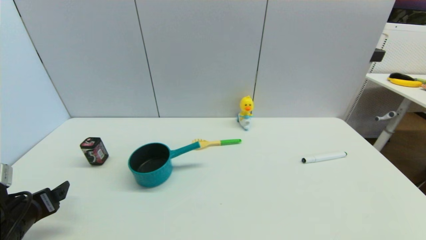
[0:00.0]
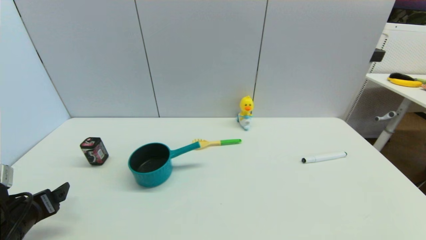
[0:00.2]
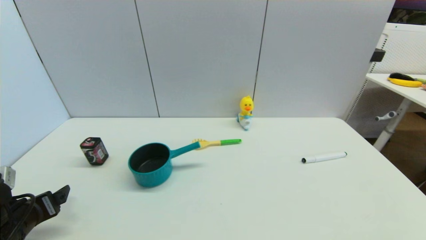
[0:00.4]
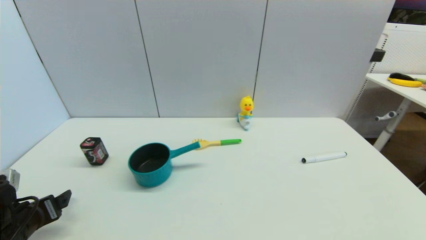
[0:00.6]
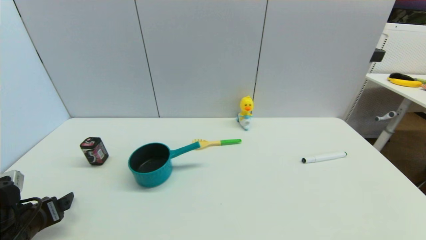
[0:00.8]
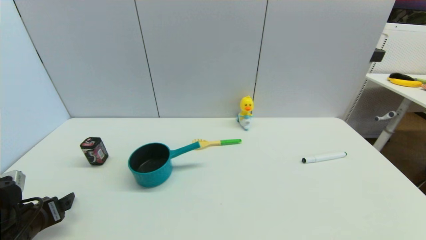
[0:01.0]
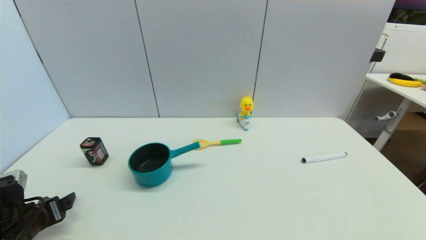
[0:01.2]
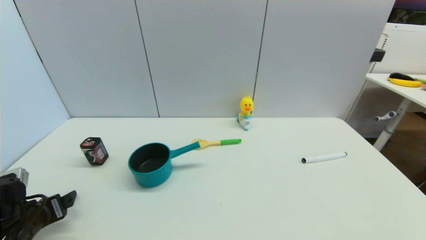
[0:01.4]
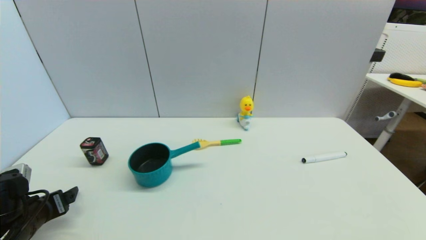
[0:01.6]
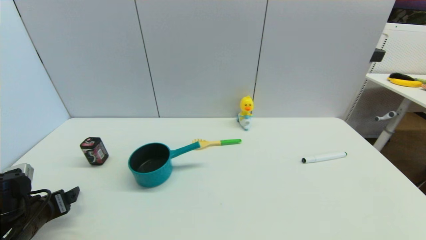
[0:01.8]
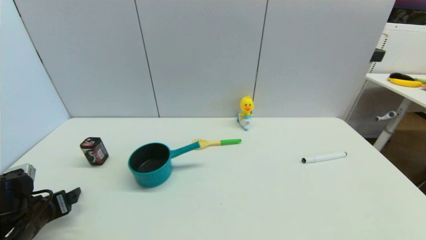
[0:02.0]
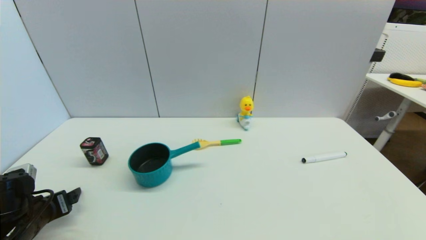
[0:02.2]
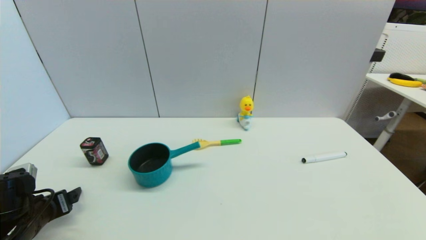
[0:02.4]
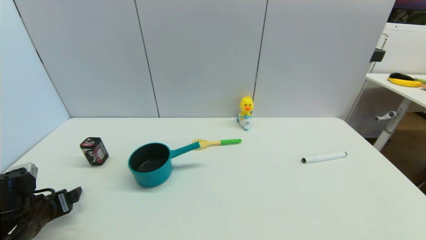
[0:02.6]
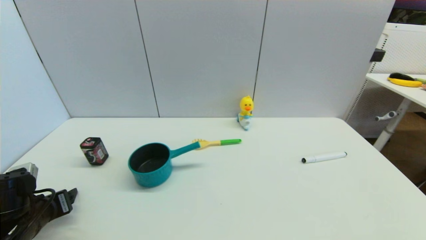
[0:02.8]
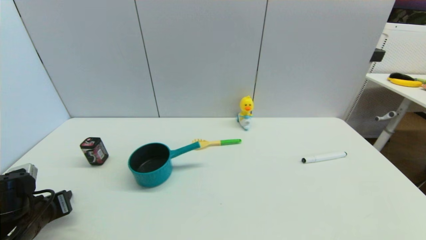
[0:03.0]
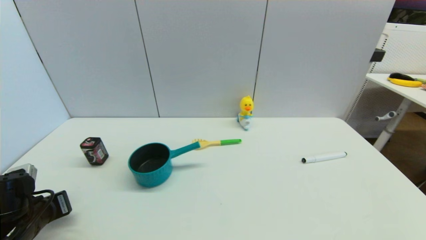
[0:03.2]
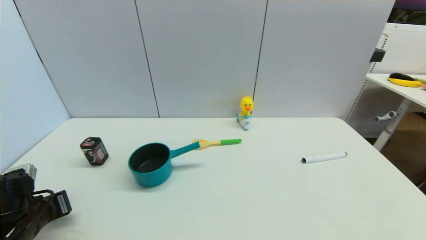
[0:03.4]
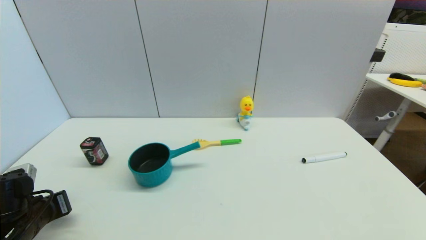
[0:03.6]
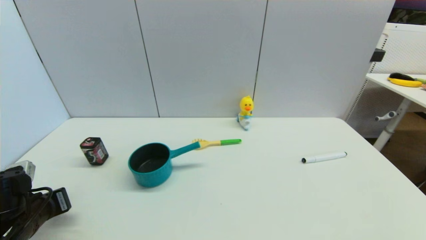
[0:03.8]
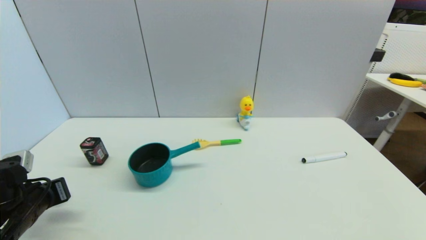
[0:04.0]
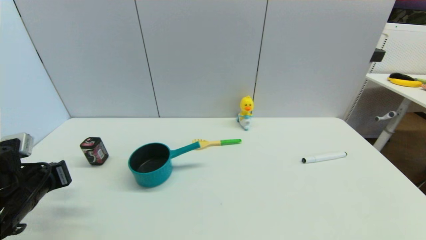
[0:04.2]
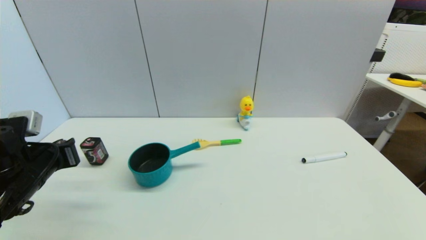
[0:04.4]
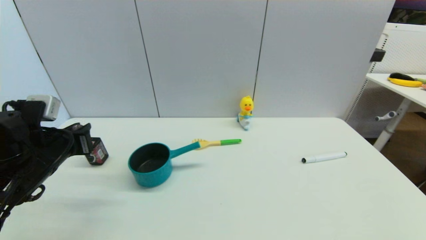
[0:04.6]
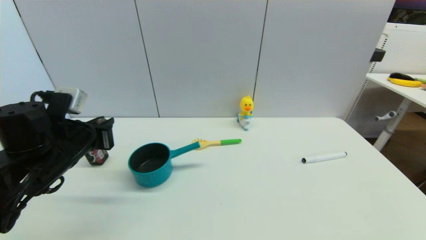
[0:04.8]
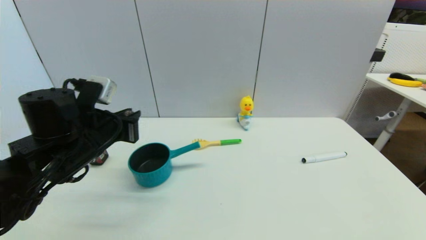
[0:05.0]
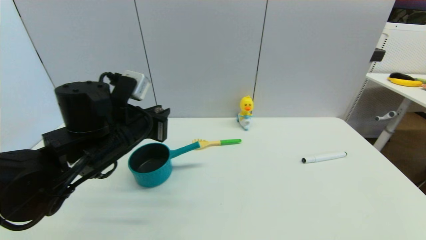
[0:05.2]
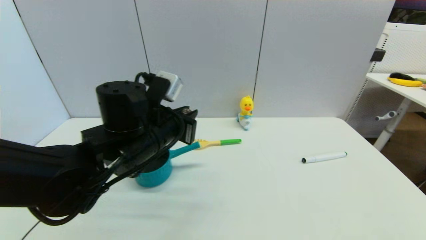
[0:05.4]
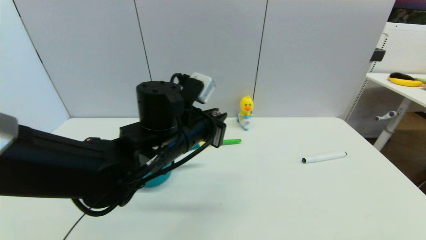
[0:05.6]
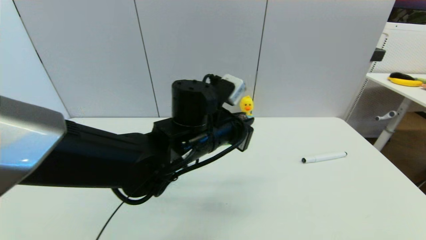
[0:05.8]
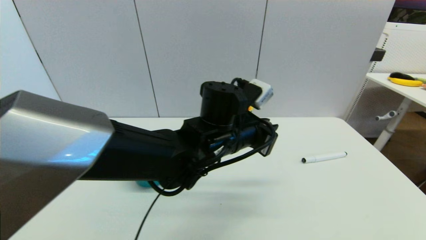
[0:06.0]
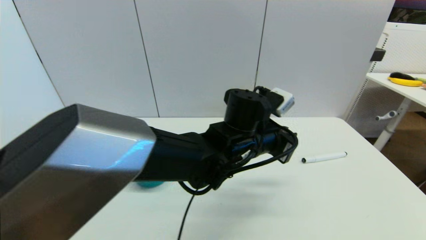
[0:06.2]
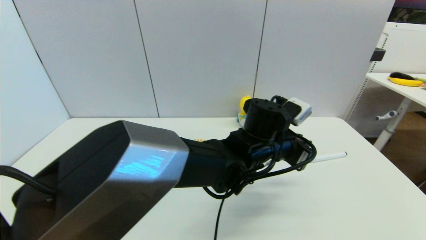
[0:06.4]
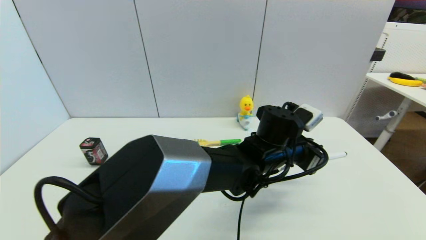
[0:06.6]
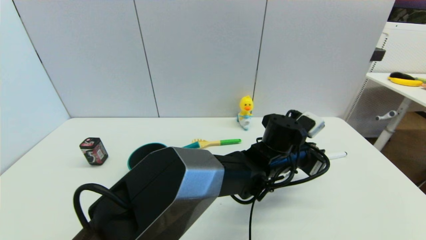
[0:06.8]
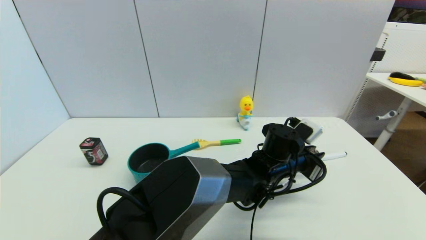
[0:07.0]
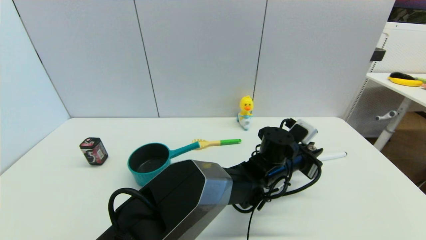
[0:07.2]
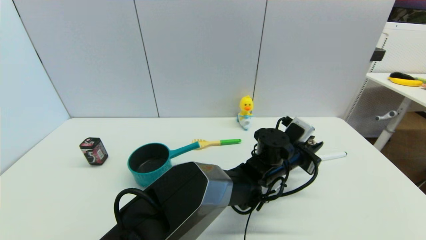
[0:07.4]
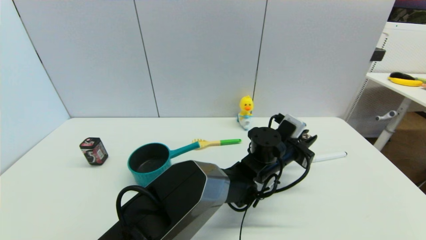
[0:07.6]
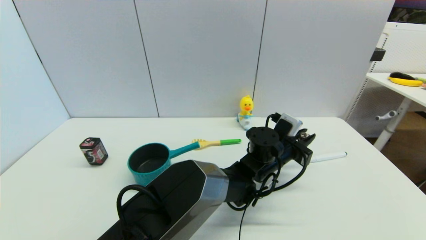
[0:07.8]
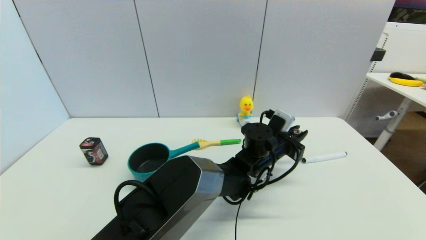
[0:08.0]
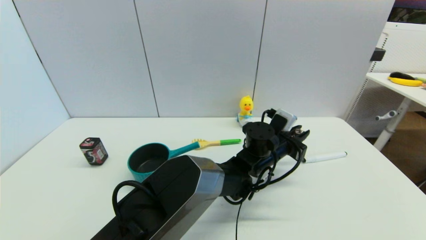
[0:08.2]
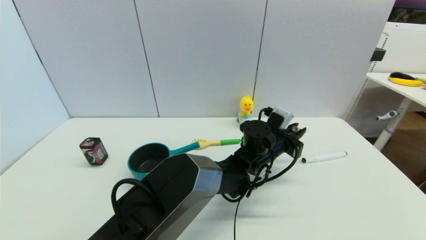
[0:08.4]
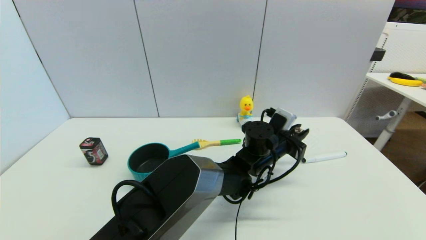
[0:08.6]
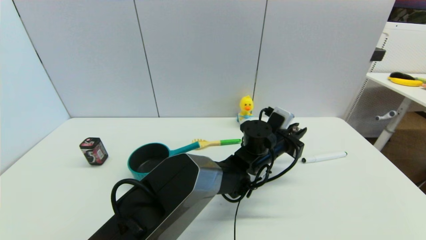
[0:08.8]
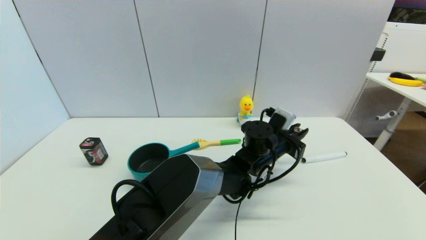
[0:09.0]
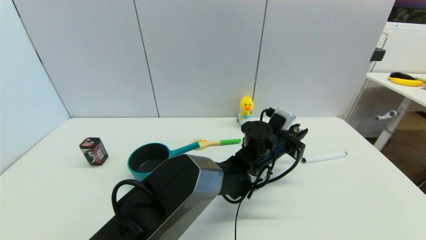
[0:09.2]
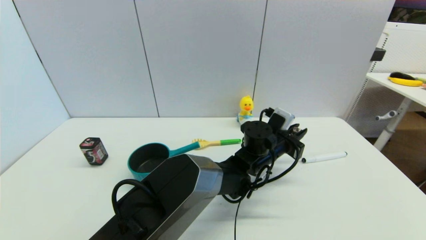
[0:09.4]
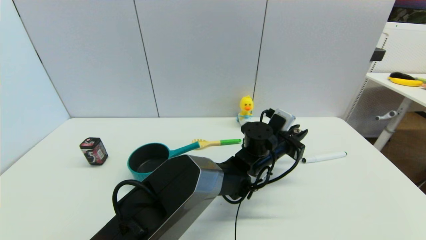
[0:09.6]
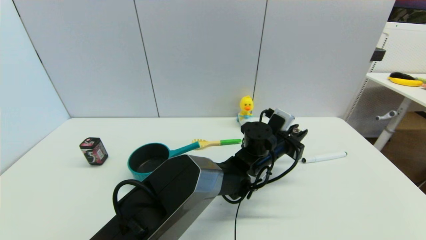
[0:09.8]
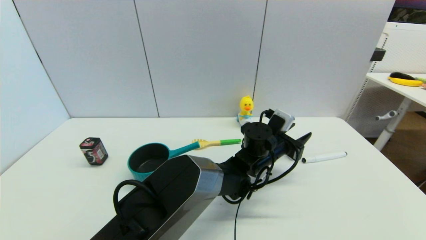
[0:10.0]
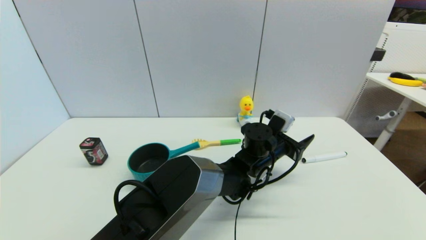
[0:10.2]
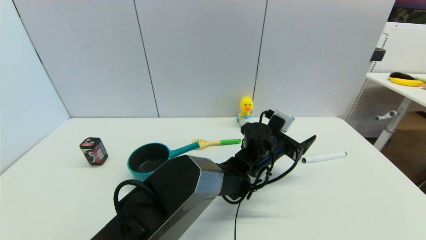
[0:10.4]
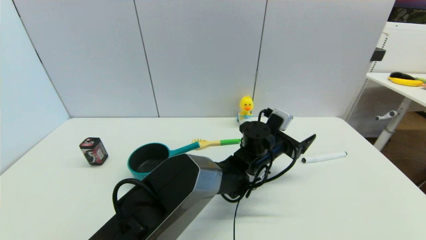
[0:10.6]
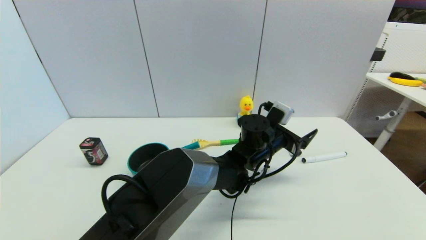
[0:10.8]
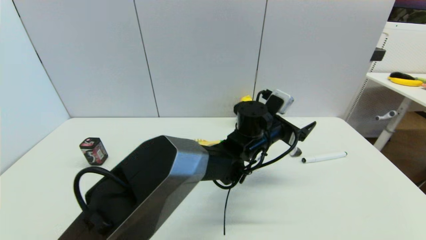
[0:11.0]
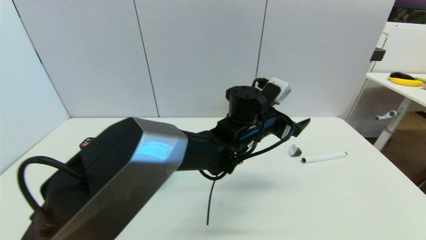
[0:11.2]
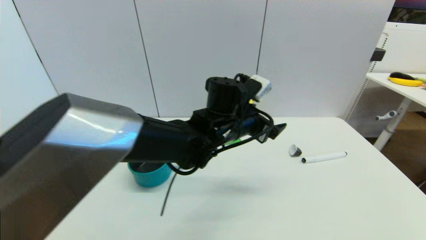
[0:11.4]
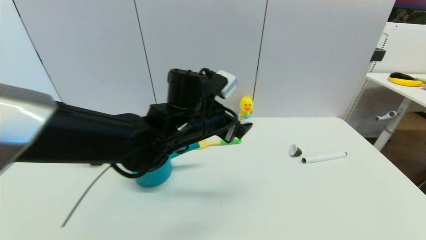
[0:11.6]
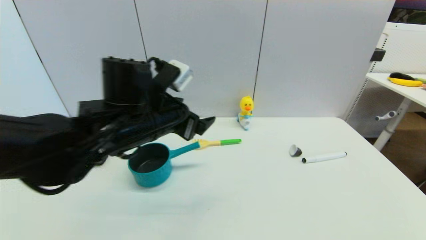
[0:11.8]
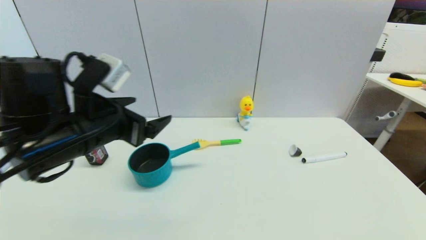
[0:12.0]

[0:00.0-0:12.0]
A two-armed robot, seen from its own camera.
Step, 0:00.0 to 0:03.6: Grasp the coffee capsule with left gripper.
Step, 0:03.8 to 0:10.2: Place the coffee capsule on the table with left gripper.
0:00.0 to 0:01.6: The grippers make only small movements.
0:01.6 to 0:03.0: The left gripper closes.
0:03.0 to 0:04.4: The left gripper heads upward, covering roughly 10 cm, and closes its fingers.
0:04.4 to 0:06.0: The left gripper heads to the right, covering about 35 cm.
0:06.0 to 0:07.6: The left gripper shifts approximately 15 cm to the right, downward and forward.
0:07.6 to 0:09.0: The grippers stay close to where they were, moving slightly.
0:09.0 to 0:10.4: The left gripper opens its fingers.
0:10.4 to 0:12.0: The left gripper shifts approximately 40 cm to the left, upward and backward.

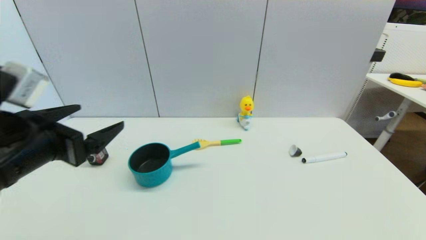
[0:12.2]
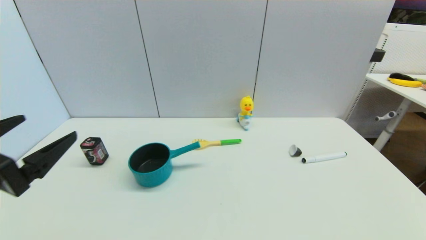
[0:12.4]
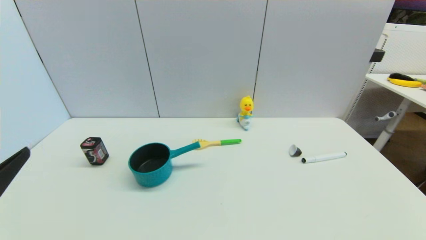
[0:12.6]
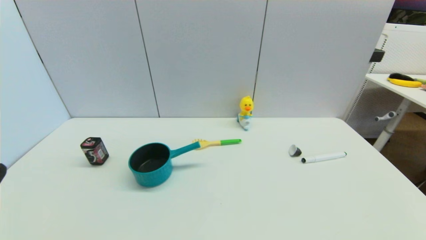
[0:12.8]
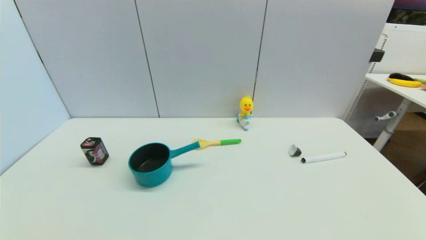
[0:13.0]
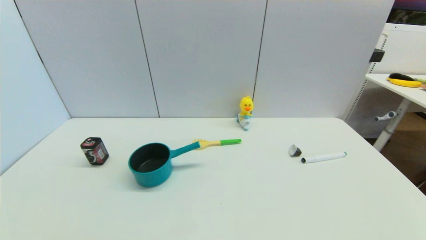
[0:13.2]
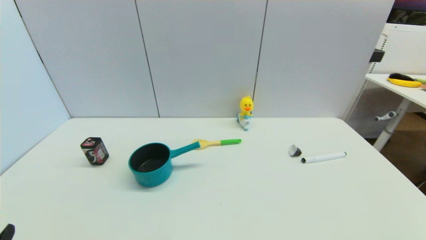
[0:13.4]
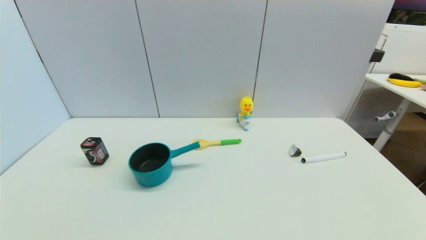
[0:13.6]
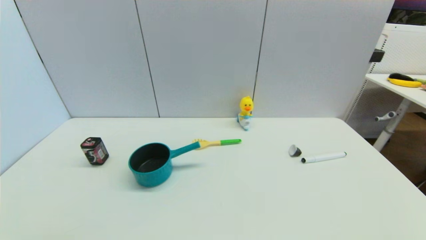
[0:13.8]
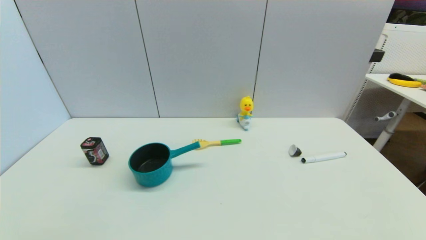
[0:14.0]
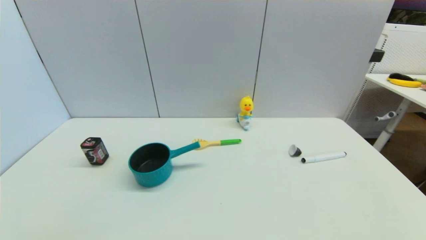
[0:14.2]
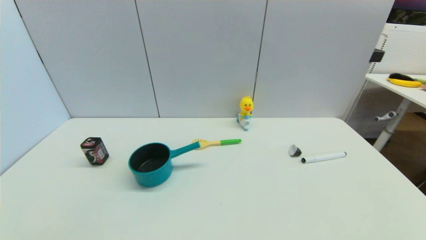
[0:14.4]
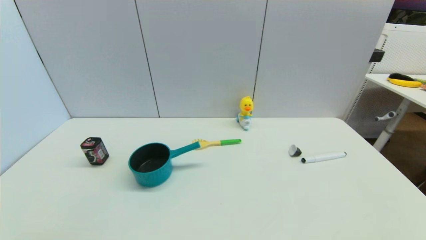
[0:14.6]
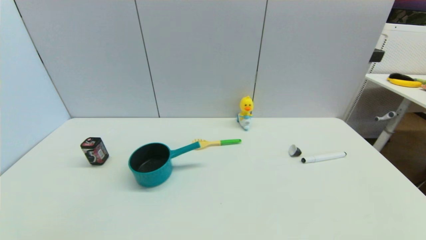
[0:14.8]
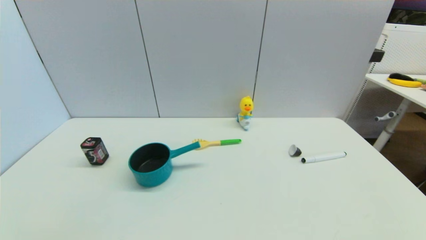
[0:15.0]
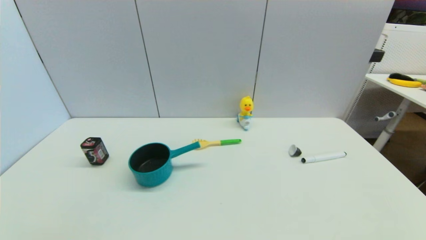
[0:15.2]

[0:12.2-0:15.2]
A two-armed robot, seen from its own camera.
0:12.2 to 0:13.8: The left gripper travels backward and downward by some 25 cm.
0:13.8 to 0:15.2: Both grippers stay put.

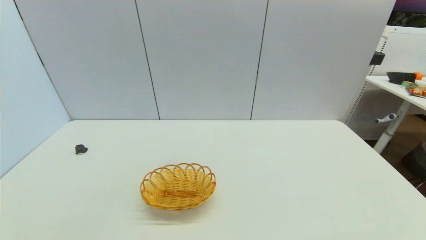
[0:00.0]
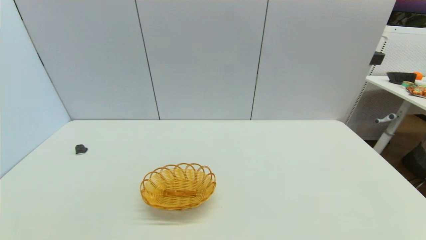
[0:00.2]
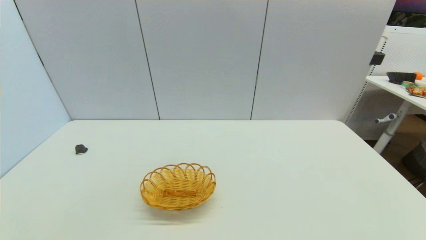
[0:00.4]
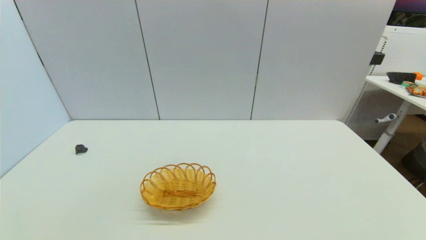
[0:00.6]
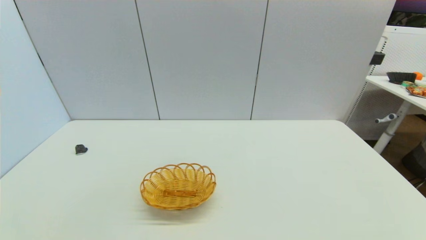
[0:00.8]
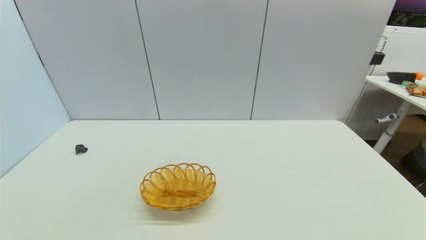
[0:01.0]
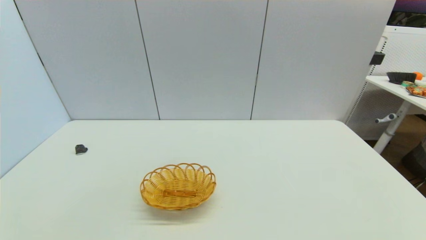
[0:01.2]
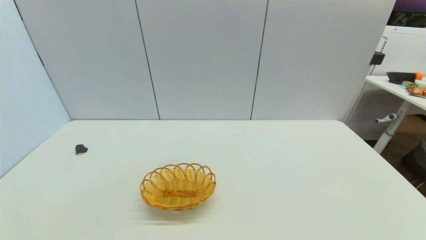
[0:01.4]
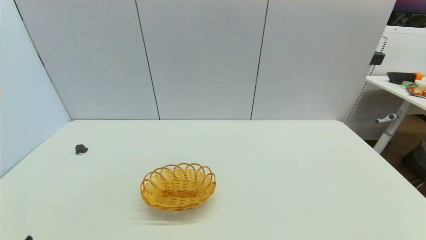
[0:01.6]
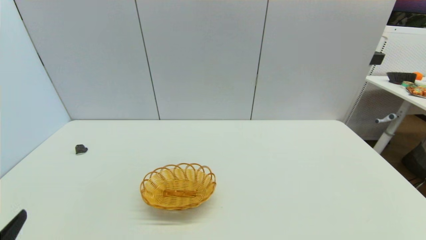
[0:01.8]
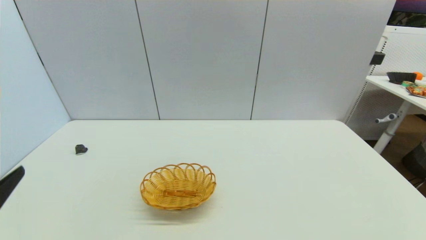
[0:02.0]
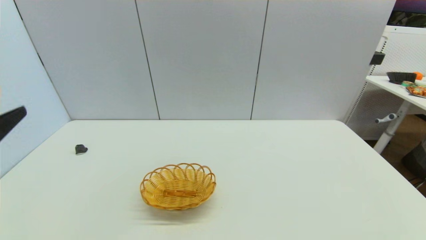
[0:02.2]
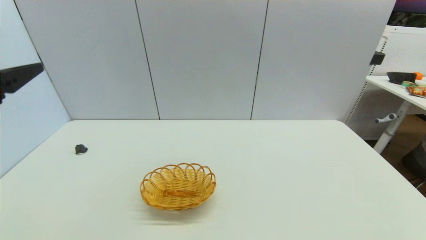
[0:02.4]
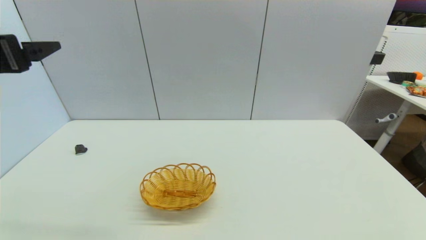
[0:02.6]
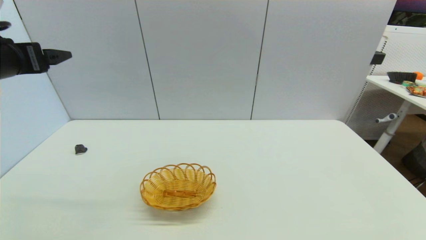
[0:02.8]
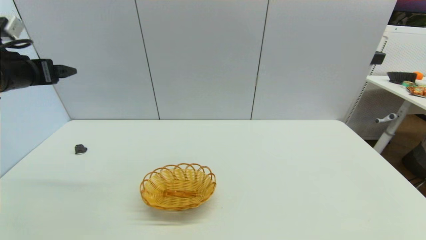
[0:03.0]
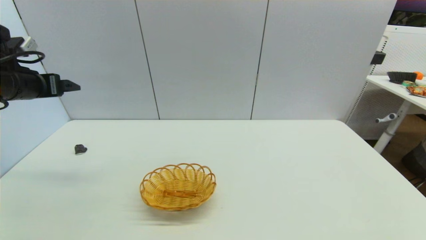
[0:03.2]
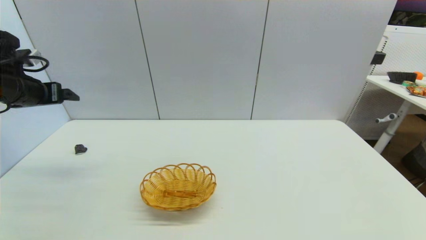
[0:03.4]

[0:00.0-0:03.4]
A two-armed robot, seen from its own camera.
0:01.6 to 0:03.4: The left gripper is displaced forward and upward by about 35 cm.
